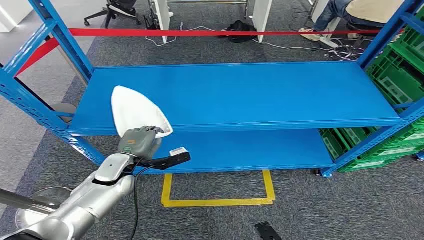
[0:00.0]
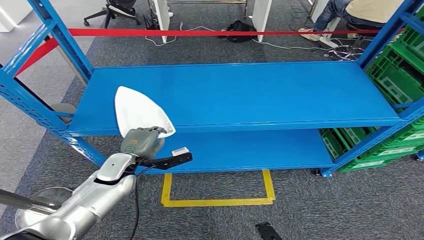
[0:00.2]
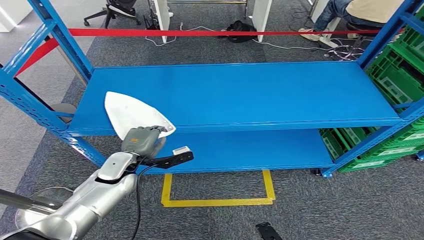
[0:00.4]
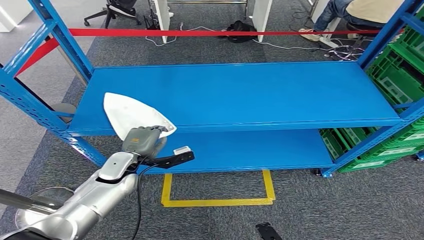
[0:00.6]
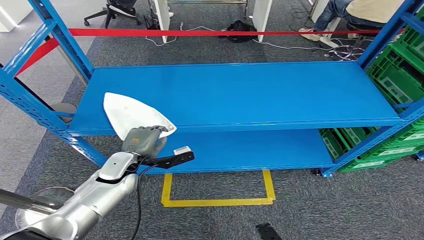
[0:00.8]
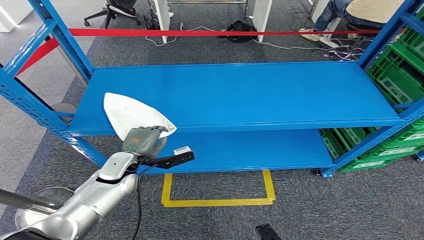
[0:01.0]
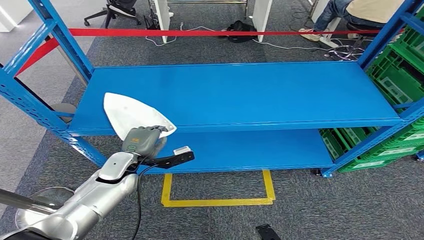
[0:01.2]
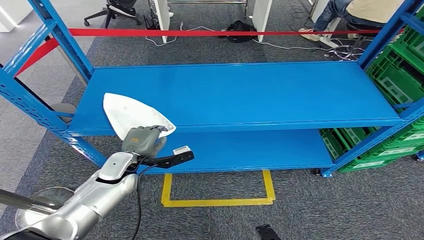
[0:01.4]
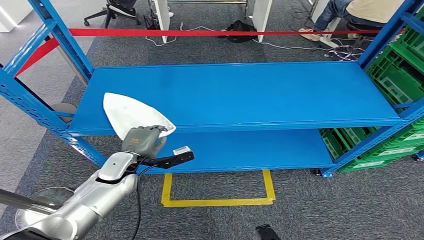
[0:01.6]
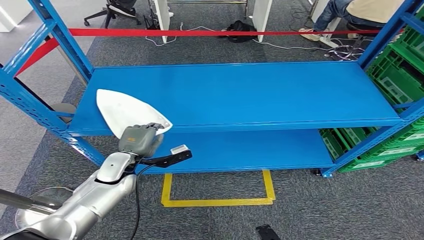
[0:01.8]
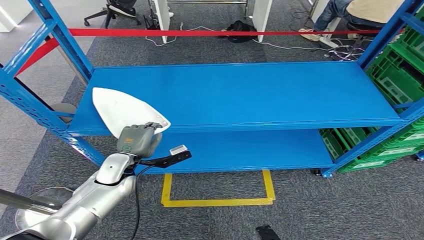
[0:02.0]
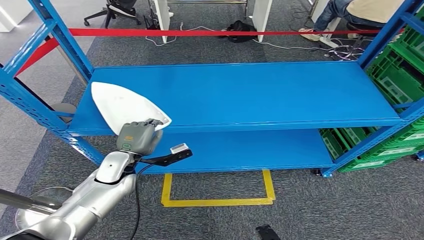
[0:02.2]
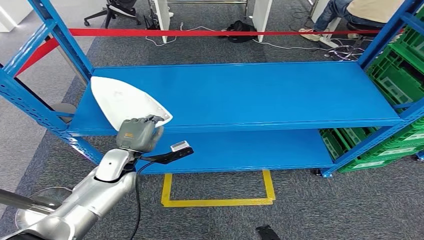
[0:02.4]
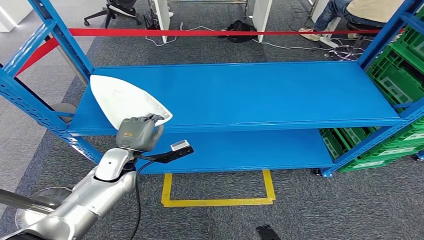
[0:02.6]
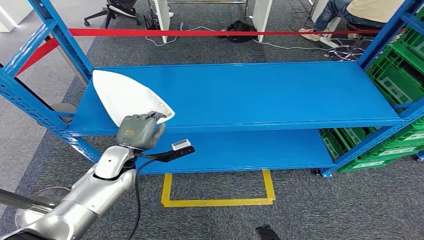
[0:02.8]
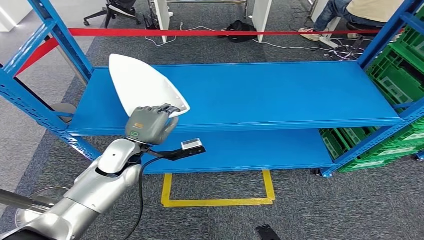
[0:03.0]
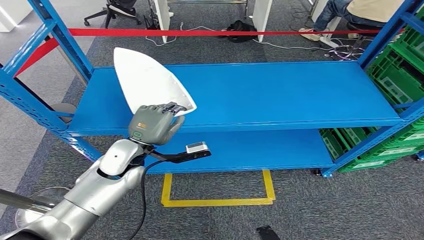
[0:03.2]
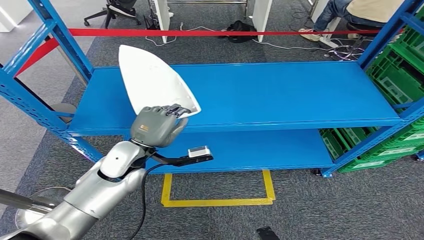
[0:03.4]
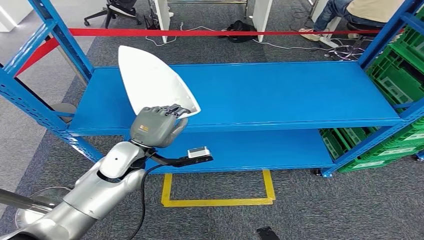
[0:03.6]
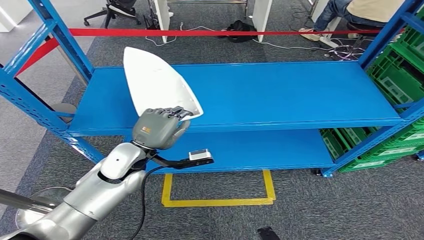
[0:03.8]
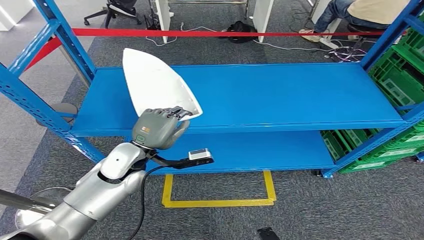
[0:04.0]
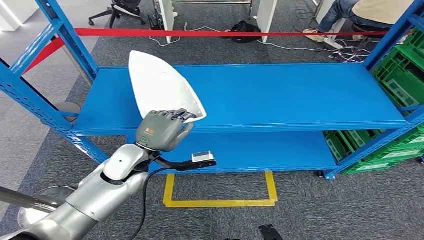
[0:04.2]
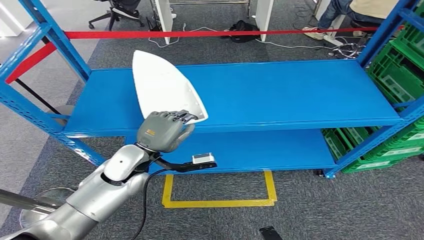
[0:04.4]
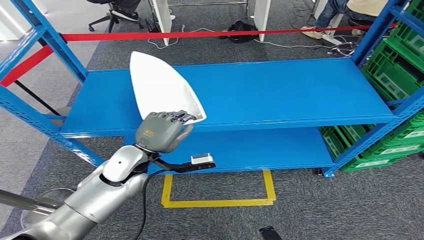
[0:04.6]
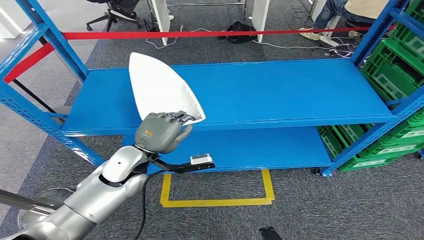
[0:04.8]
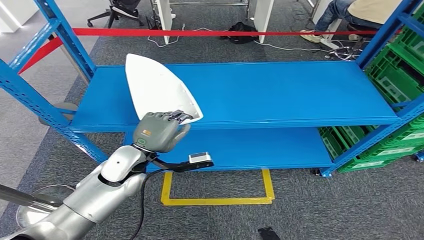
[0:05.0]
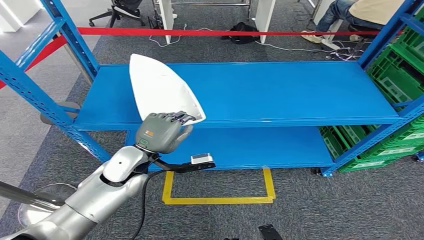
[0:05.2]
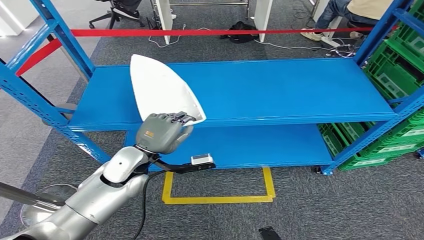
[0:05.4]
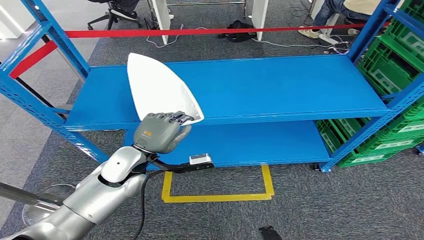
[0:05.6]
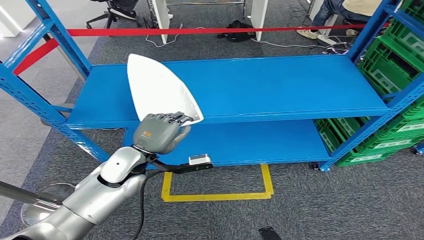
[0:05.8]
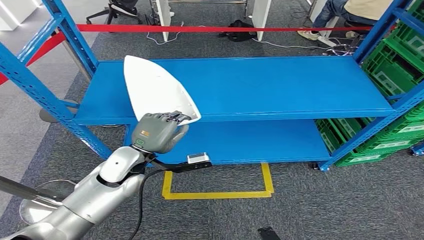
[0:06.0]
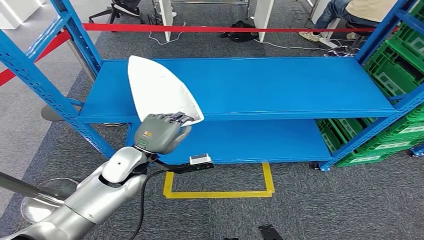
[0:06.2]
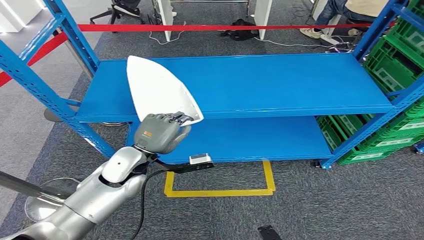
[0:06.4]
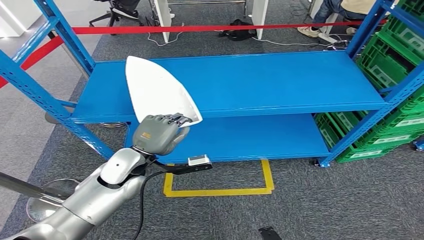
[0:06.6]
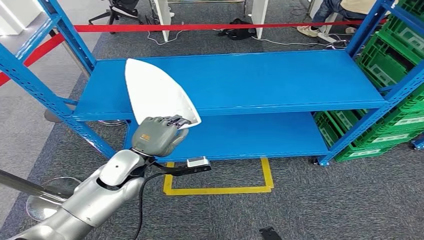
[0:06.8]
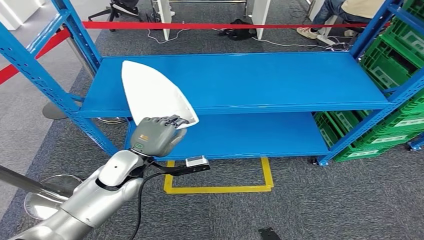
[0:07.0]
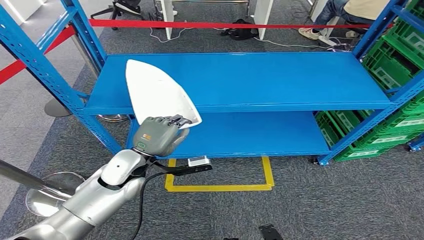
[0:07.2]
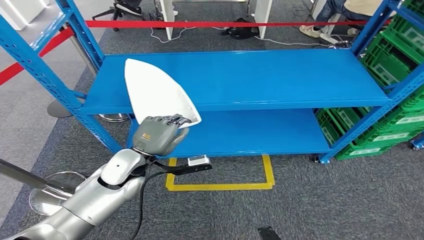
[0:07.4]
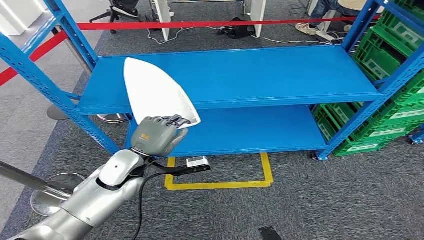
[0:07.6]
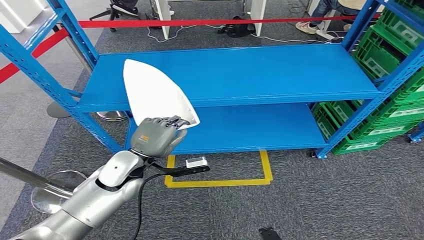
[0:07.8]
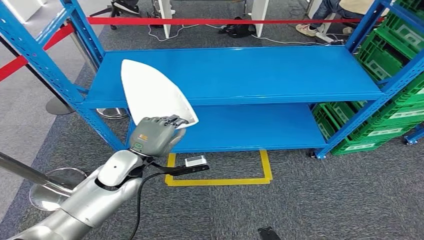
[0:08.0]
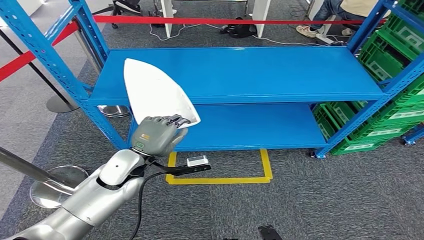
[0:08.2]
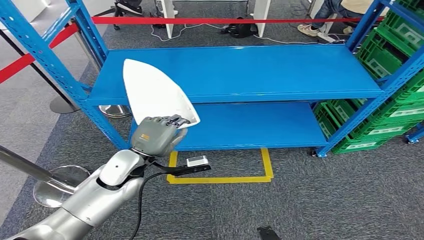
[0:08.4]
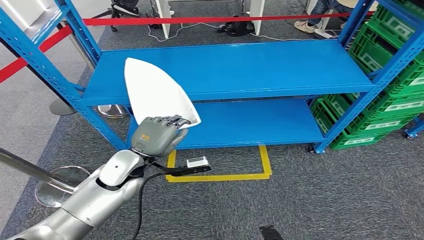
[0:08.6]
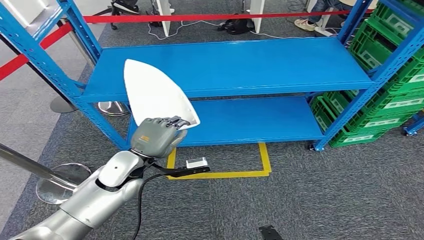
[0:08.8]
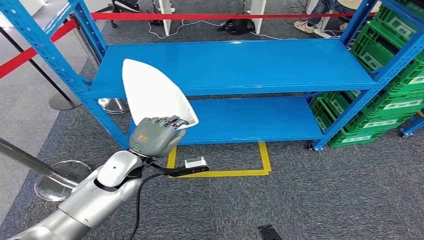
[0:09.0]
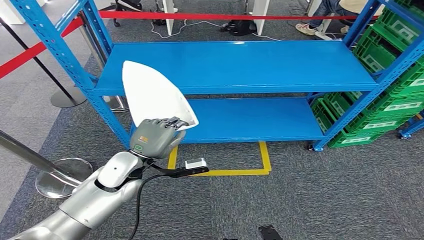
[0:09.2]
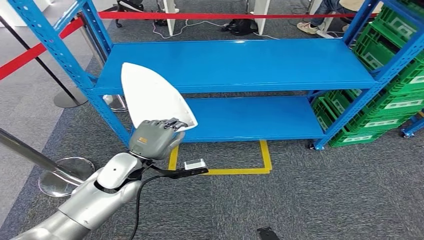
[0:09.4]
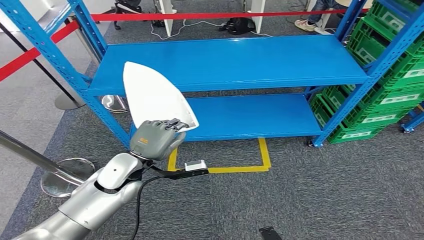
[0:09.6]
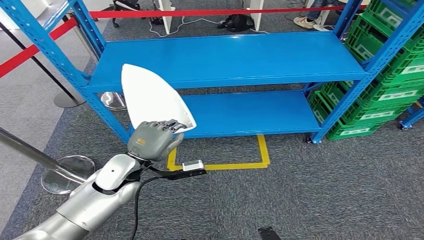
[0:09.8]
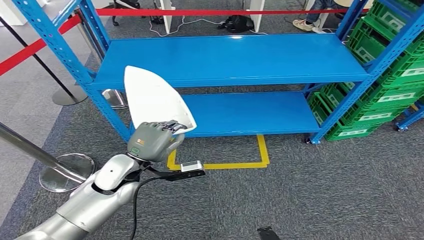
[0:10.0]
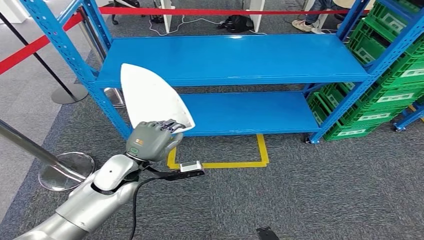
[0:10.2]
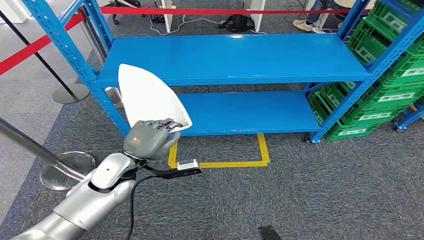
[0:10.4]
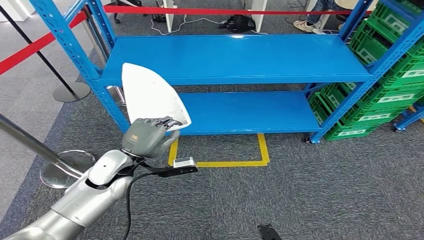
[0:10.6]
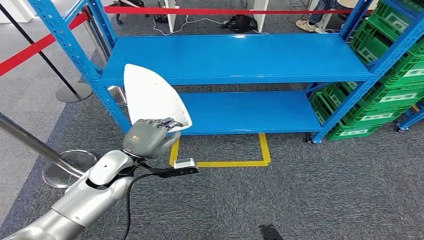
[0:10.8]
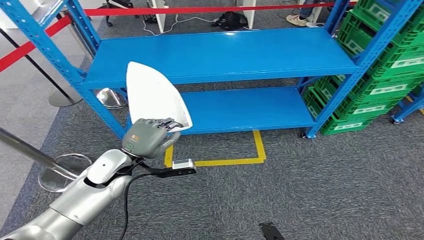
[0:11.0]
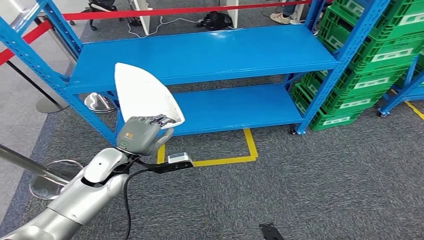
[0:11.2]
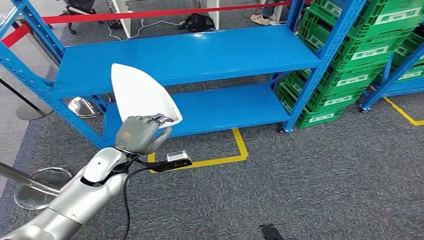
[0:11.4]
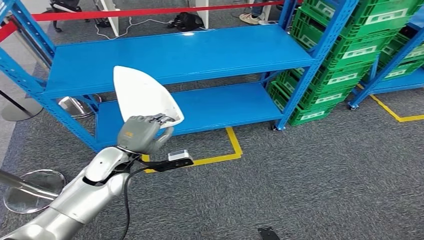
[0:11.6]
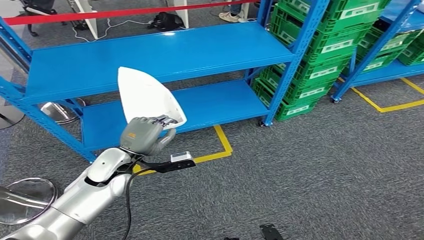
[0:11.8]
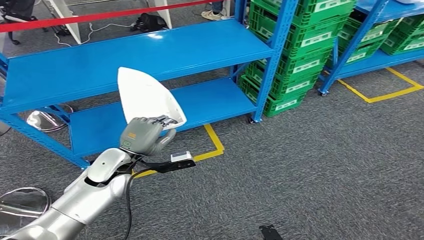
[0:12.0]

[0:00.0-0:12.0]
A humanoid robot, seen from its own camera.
Step, 0:00.0 to 0:04.6: Pick up the small parts from the shelf.
0:01.6 to 0:03.0: The left hand shifts about 5 cm upward.

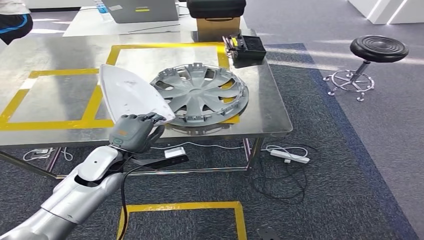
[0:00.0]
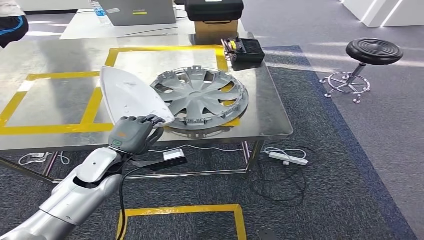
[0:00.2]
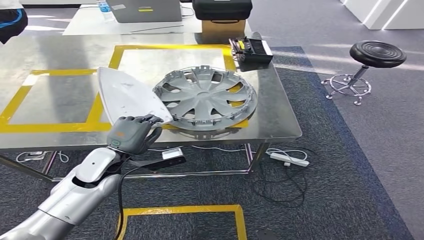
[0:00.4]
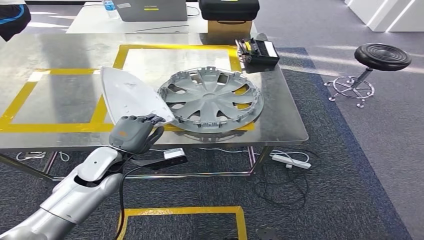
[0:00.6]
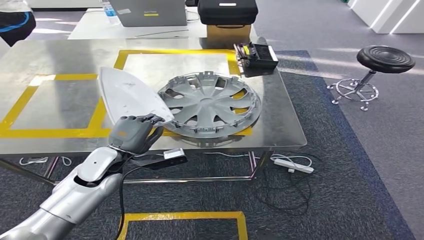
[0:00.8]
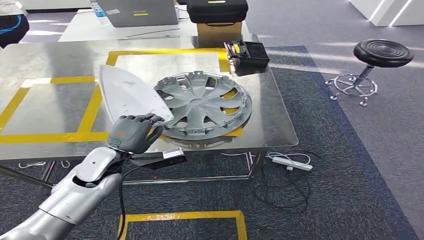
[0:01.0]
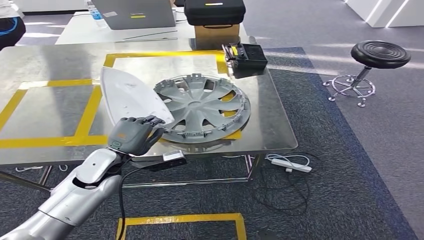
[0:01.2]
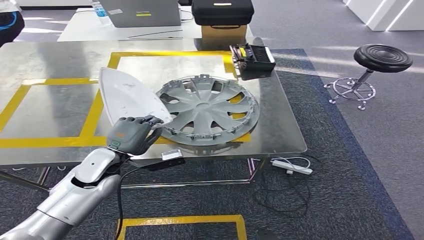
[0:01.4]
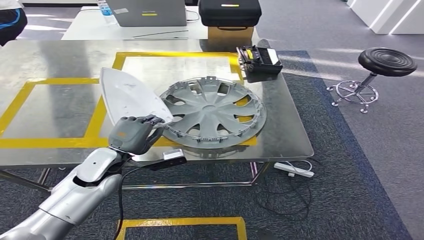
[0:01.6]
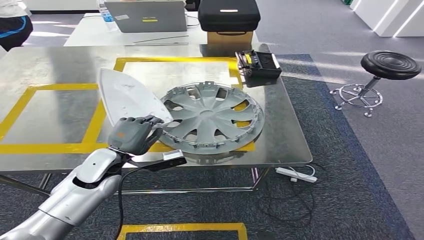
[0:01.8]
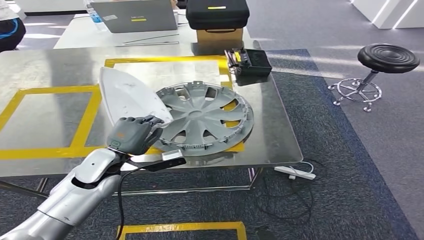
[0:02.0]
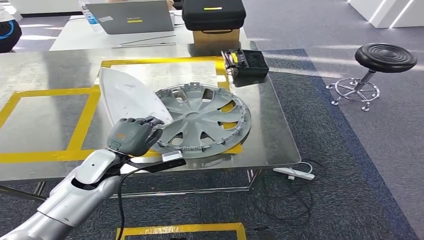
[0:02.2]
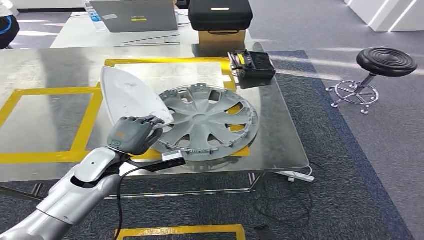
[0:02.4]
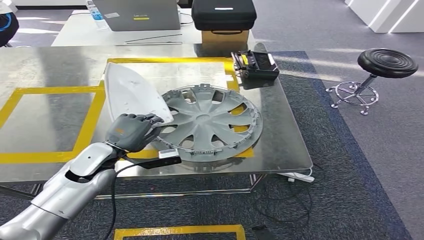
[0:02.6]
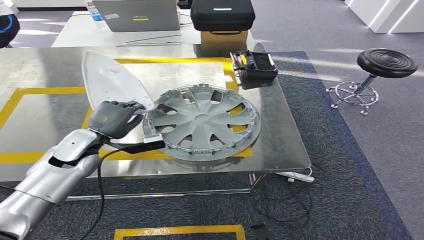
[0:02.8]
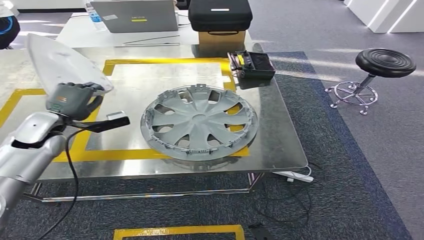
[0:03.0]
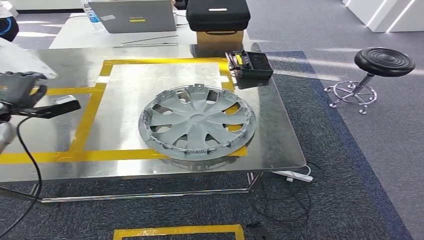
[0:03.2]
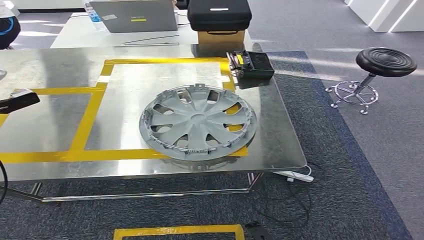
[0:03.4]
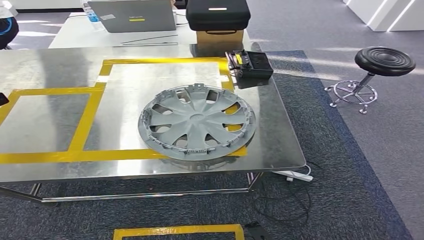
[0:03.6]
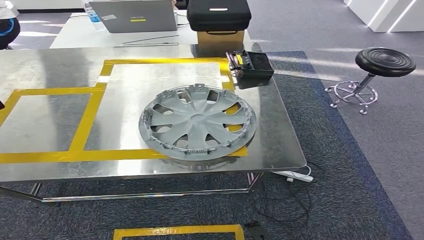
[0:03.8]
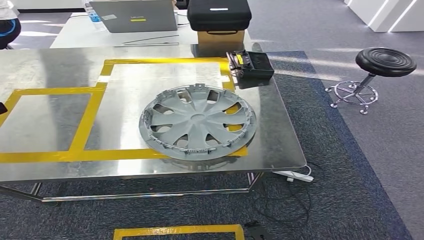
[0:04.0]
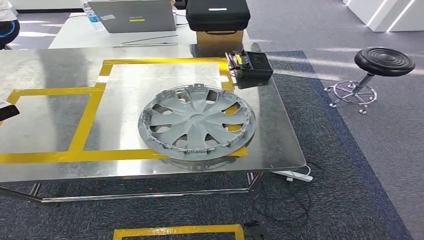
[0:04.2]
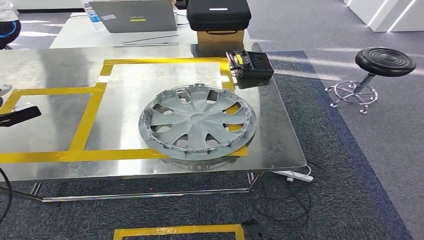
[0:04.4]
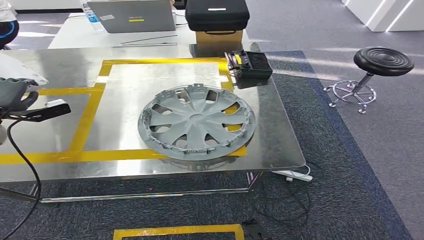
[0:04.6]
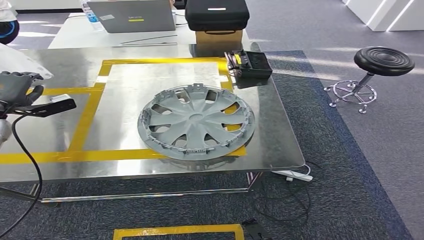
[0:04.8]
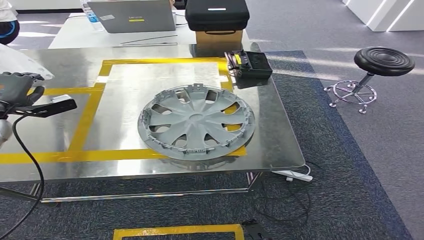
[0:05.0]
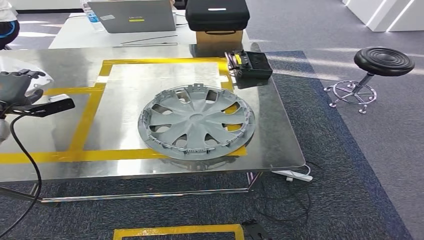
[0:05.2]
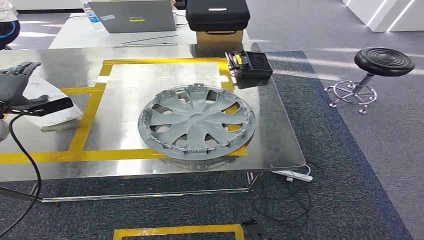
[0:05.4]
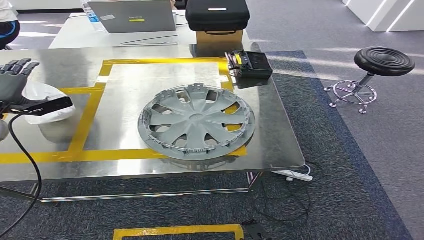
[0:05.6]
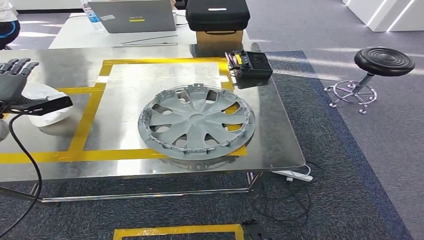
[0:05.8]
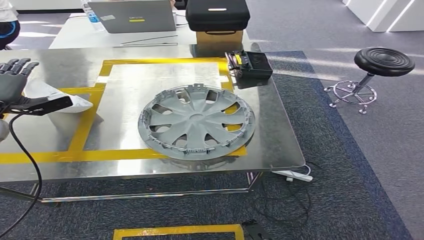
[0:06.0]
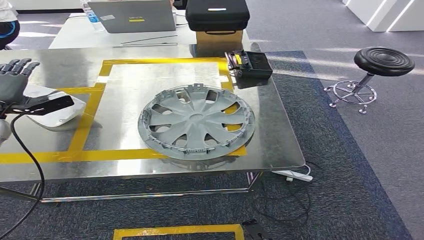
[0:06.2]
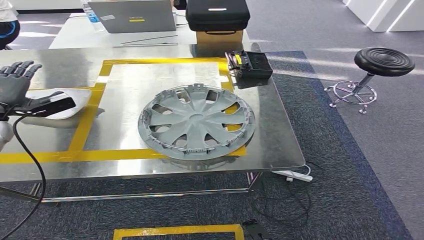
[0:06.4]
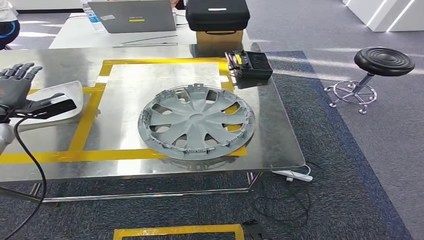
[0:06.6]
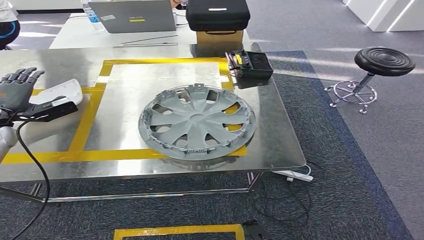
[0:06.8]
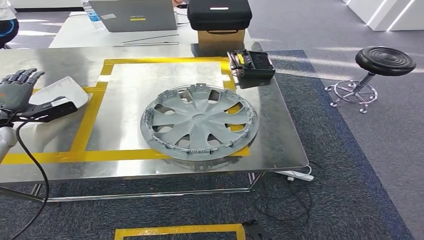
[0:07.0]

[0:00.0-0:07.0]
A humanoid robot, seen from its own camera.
Step, 0:00.0 to 0:02.6: Move the small parts to the workbench.
0:04.2 to 0:05.6: The left hand goes about 10 cm to the right.
0:05.6 to 0:07.0: The hands stay close to where they were, moving slightly.
